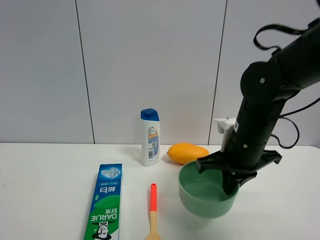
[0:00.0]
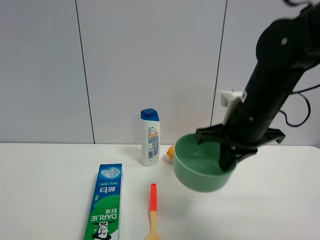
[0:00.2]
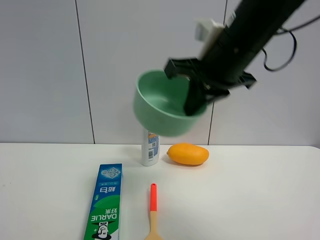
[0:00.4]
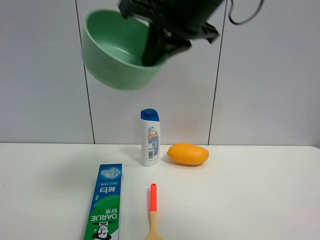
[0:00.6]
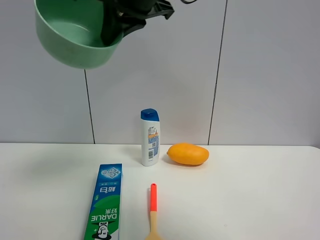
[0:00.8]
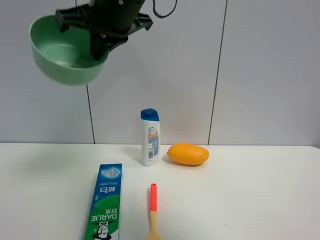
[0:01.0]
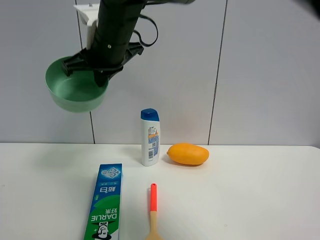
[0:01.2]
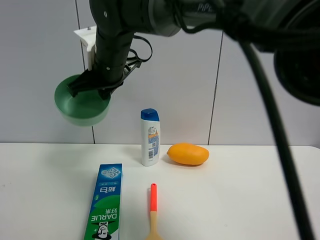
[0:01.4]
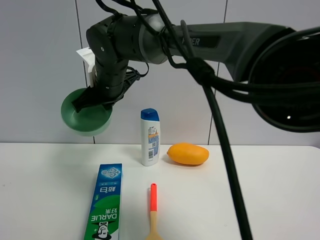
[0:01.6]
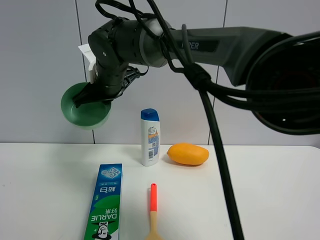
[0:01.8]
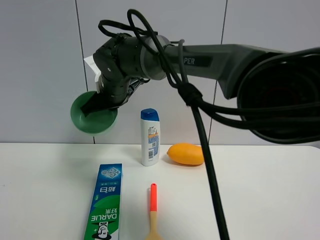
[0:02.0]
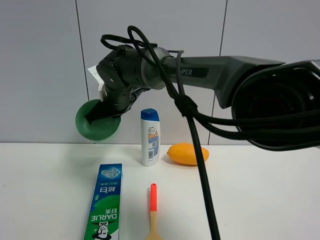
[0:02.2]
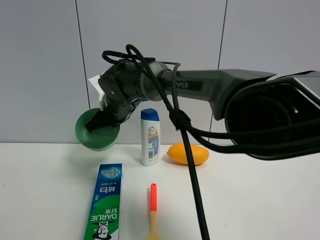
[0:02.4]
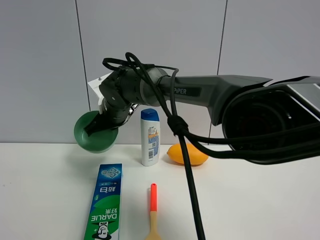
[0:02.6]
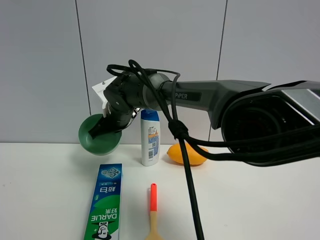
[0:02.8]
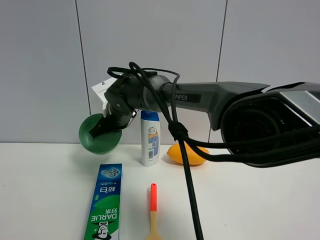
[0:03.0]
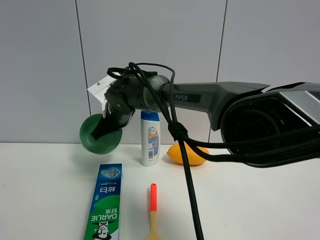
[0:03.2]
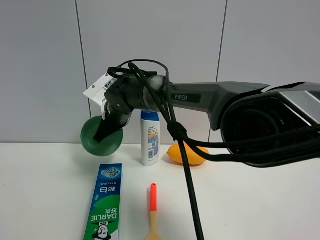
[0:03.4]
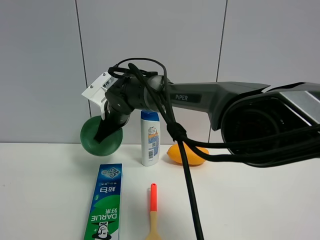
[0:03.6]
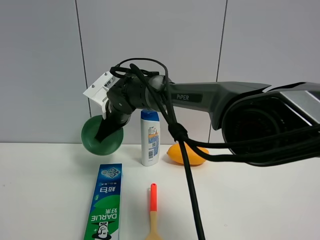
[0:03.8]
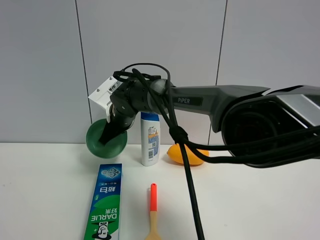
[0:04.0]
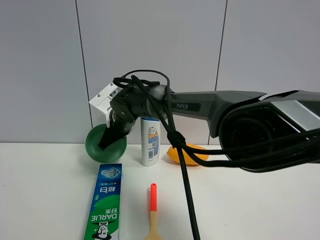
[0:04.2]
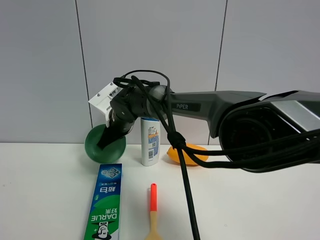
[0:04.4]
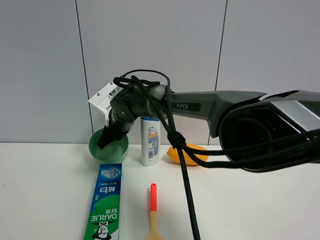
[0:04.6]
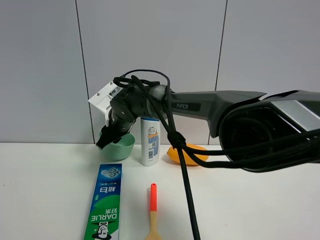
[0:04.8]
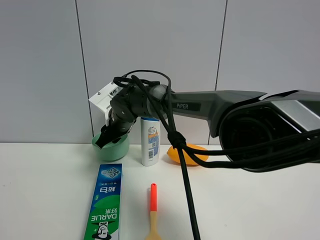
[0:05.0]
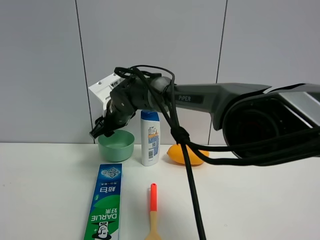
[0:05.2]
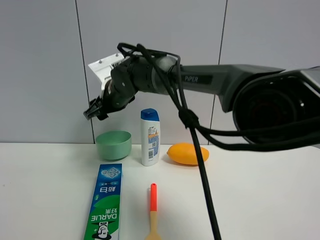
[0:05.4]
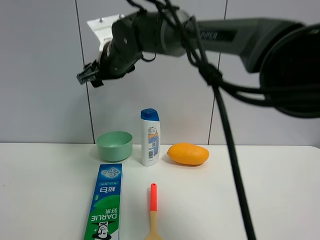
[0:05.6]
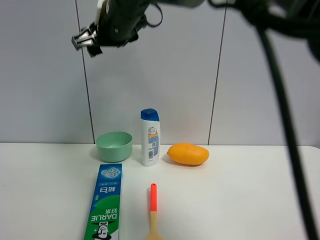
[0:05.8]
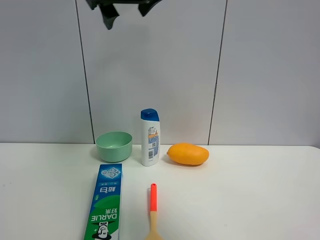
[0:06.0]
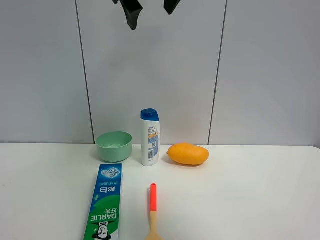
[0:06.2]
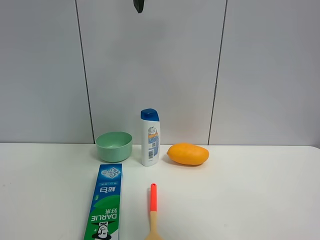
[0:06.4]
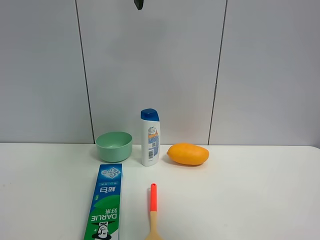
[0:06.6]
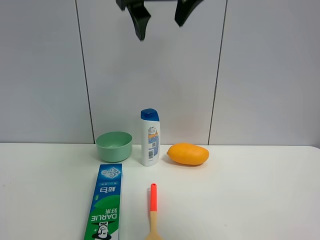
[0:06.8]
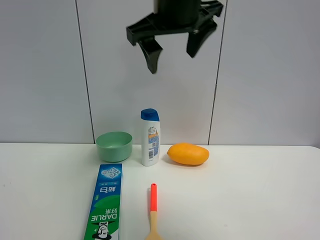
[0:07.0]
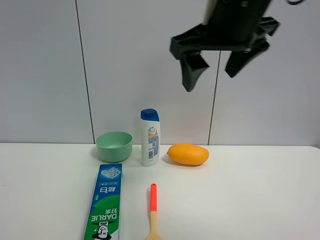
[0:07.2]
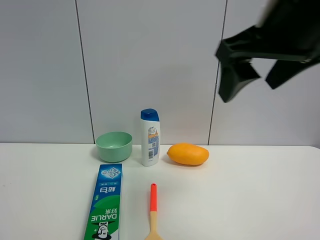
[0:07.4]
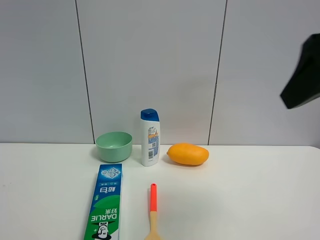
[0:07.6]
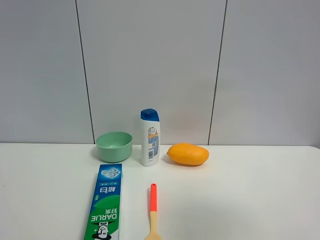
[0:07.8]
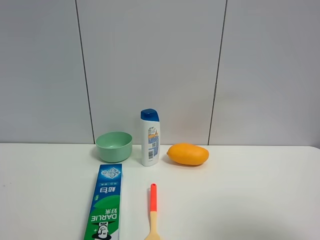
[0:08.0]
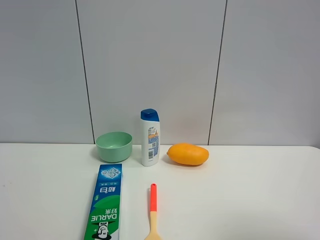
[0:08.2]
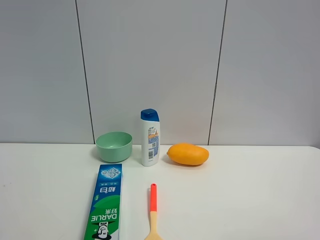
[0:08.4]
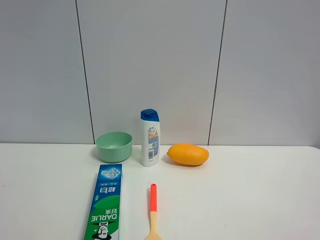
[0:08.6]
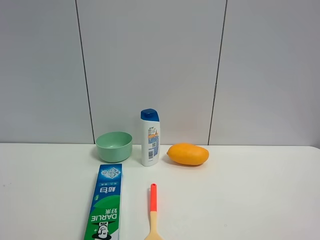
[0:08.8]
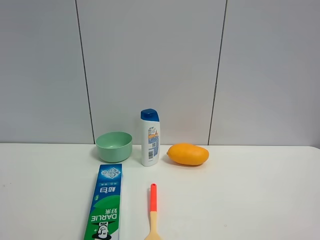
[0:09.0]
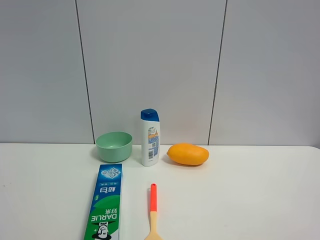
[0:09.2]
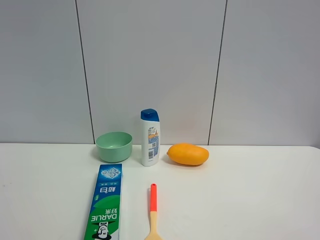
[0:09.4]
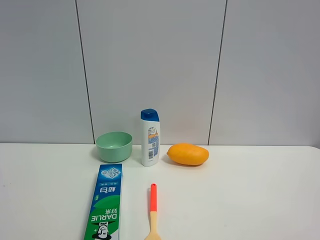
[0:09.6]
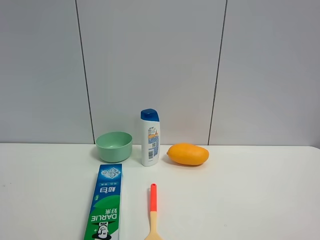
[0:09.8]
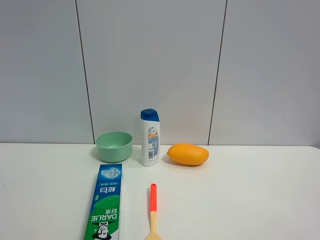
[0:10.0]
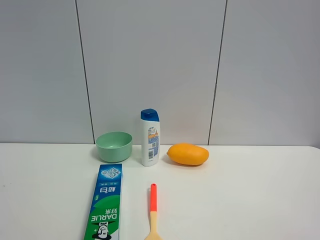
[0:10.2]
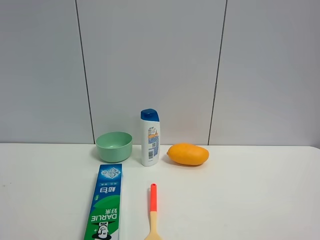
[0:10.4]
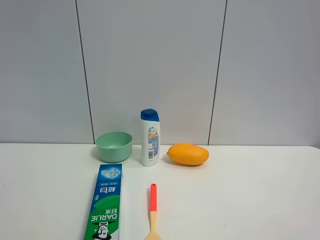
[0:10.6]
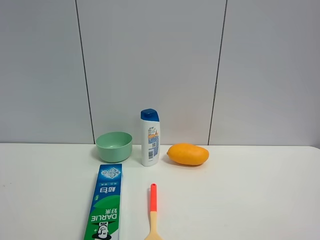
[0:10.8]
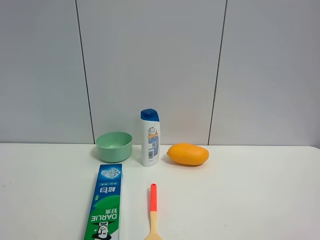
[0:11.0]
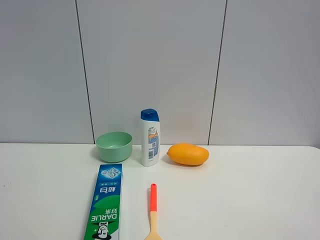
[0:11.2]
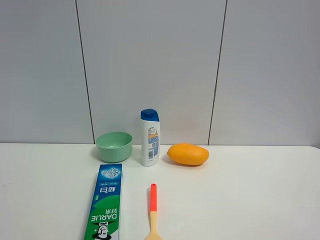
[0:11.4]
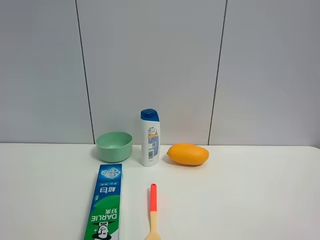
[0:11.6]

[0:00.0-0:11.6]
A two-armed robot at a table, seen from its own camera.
Task of the whole recording: the gripper move the object.
Step, 0:00.0 to 0:04.8: Place the green bowl on the table with the right gripper.
0:00.0 to 0:01.4: The right gripper travels to the left by roughly 25 cm.
0:01.4 to 0:02.8: The right gripper heads downward and forward, covering roughly 15 cm.
0:04.4 to 0:05.8: The right gripper goes about 20 cm upward, and opens.
0:05.8 to 0:07.2: The right gripper shifts approximately 20 cm to the right and backward.
0:07.2 to 0:08.8: The right gripper goes approximately 30 cm backward and to the right.
0:08.8 to 0:11.6: The two grippers keep their place.

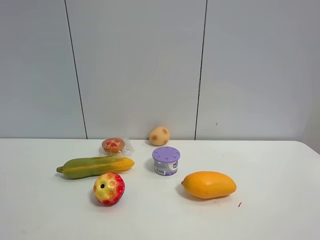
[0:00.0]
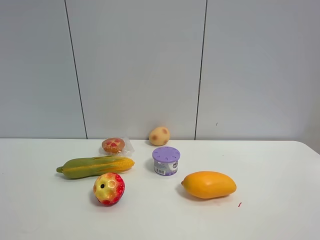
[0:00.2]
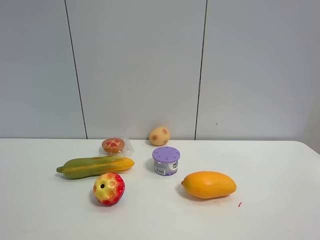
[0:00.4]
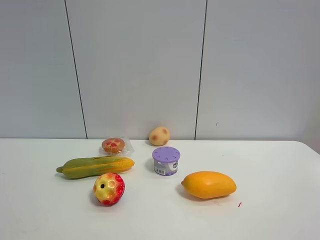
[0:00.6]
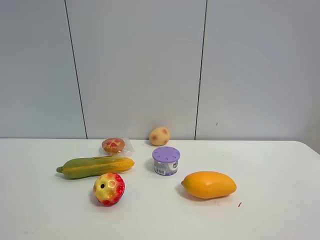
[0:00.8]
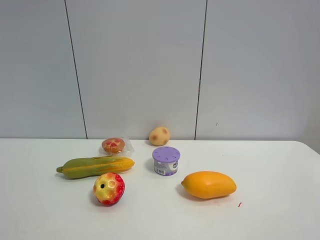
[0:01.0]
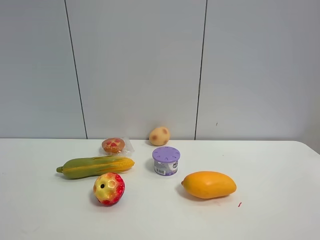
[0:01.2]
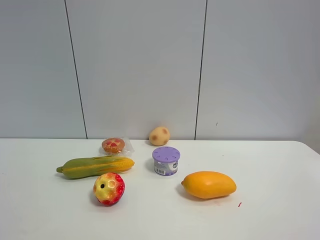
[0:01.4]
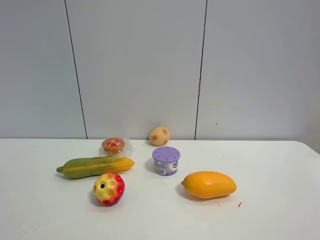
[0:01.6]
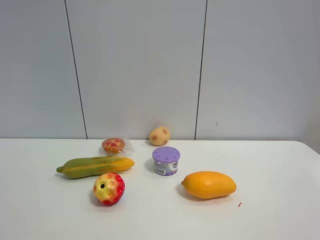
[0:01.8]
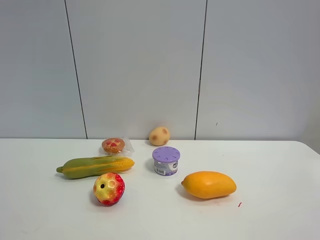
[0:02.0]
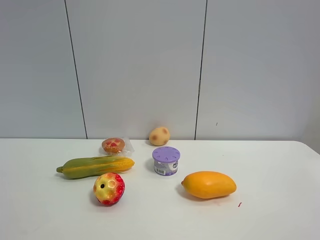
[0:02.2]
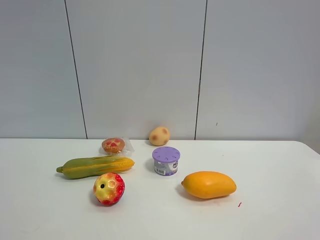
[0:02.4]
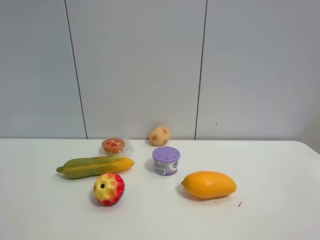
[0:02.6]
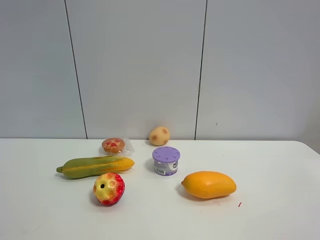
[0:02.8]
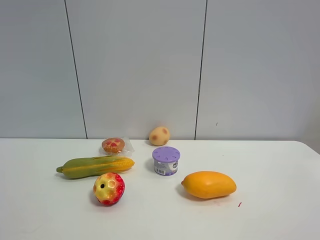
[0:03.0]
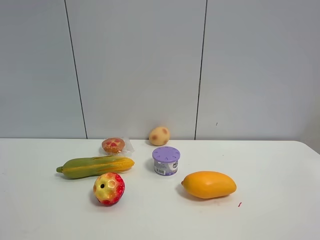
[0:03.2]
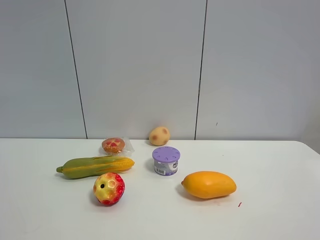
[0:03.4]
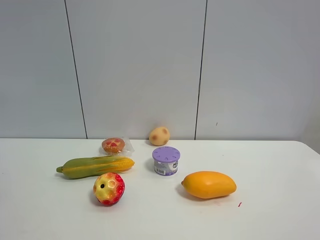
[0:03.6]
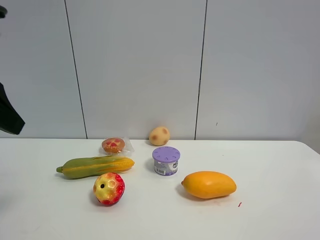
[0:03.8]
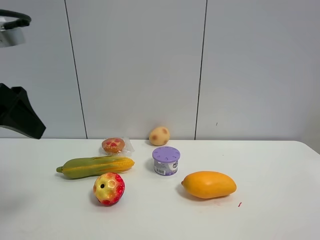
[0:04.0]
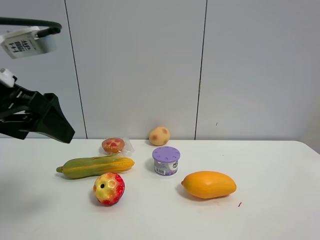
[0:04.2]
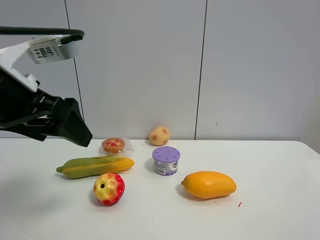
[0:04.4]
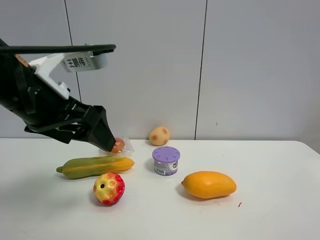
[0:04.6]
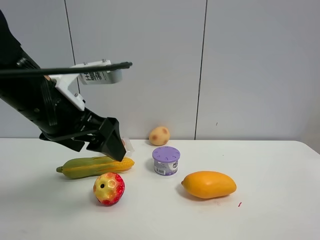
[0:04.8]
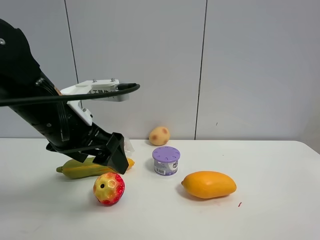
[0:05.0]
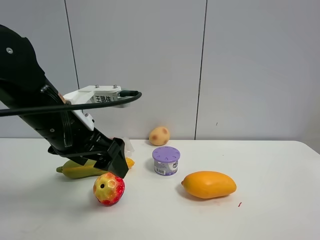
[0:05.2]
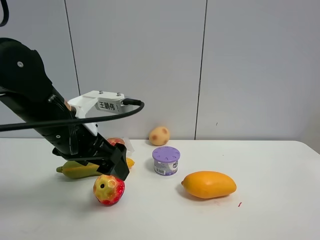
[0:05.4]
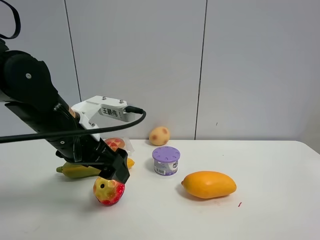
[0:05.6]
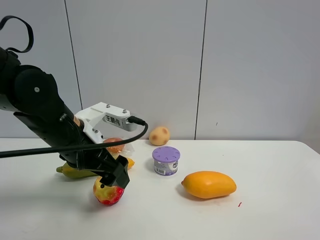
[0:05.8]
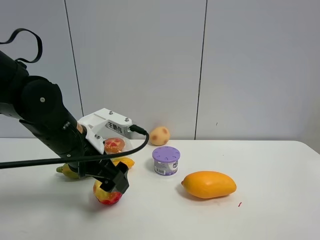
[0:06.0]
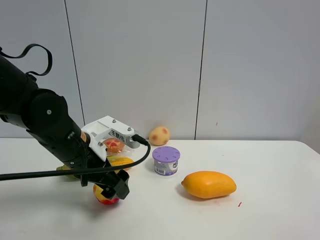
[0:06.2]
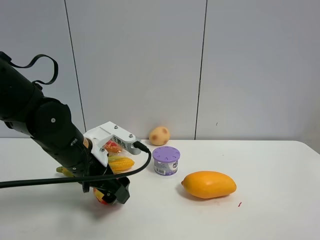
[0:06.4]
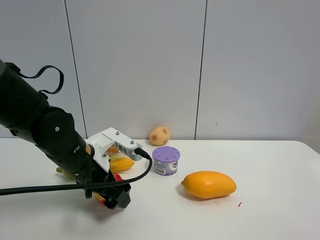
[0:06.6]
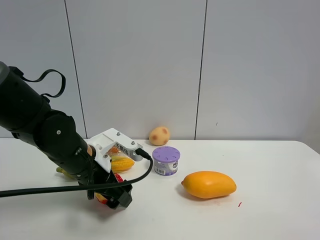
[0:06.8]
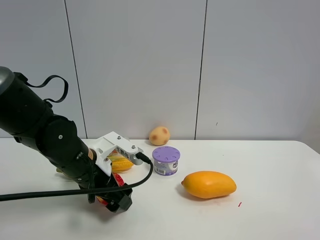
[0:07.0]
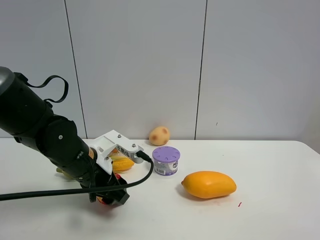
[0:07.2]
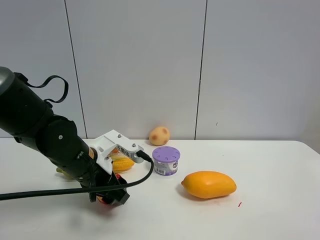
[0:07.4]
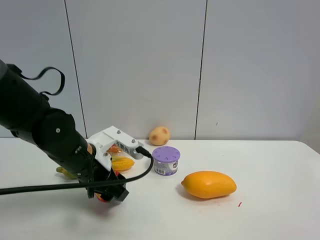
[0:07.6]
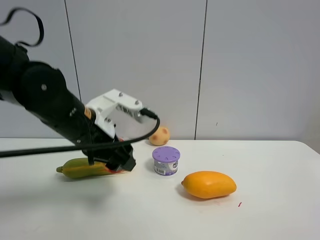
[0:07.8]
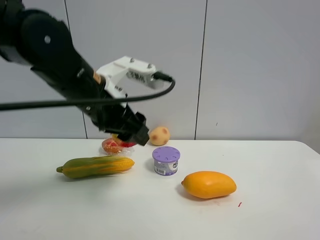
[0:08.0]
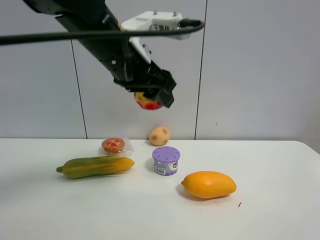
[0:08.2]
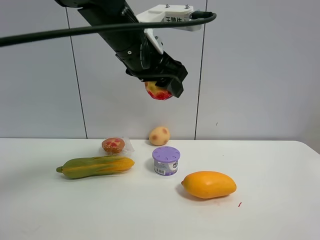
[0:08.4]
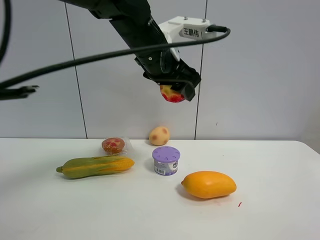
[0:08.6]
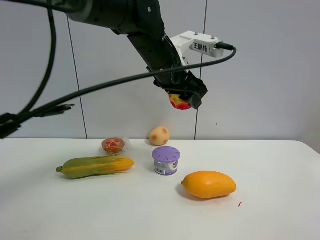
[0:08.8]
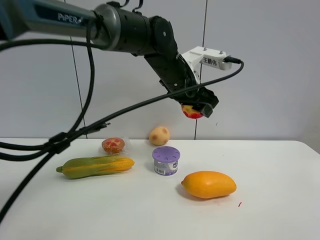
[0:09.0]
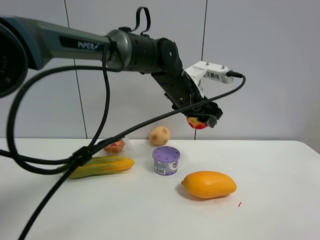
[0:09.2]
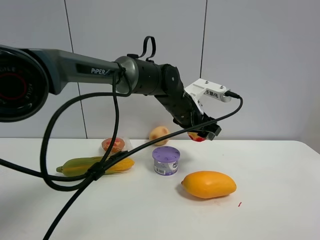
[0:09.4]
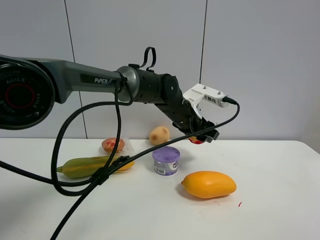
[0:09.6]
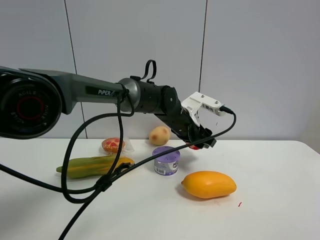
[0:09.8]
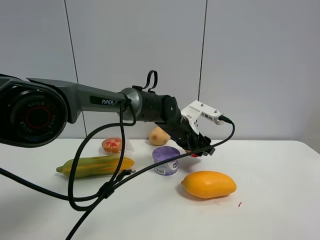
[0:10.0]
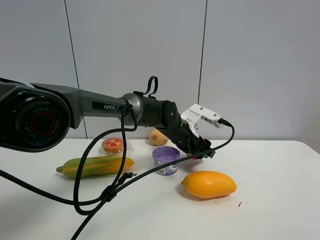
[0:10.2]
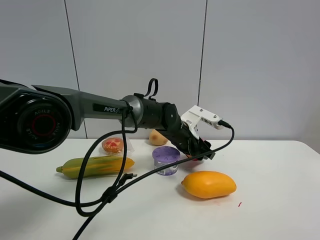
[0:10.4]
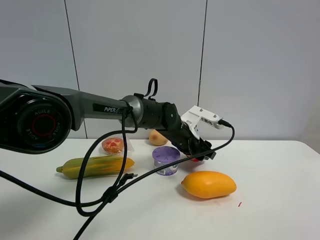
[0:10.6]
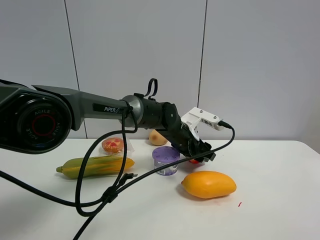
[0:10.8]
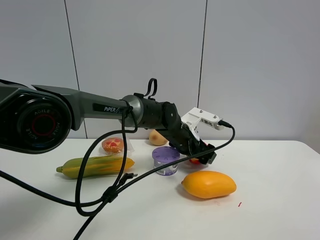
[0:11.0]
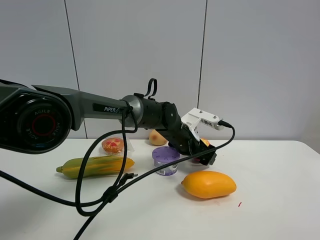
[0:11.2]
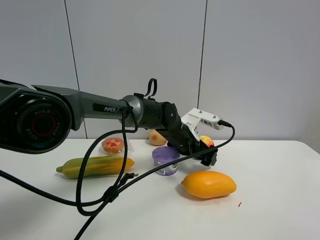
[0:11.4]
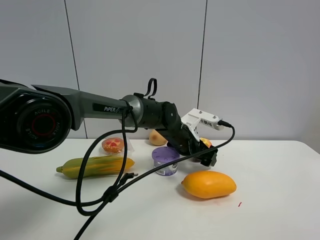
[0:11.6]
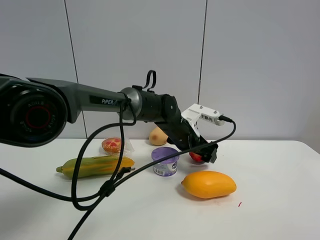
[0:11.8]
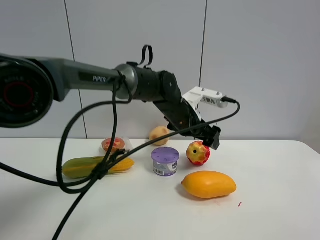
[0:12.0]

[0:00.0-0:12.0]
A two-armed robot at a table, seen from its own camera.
Task of the whole recording: the gripper move the object.
Step, 0:00.0 to 0:07.2: Grasp the colorful ball with the left gripper.
0:00.0 to 0:01.6: The two grippers keep their place.
0:03.0 to 0:04.4: The left gripper moves to the right, forward and downward, approximately 15 cm.
0:04.4 to 0:06.0: The left gripper heads downward, forward and to the right, covering some 15 cm.
0:06.0 to 0:07.6: The left gripper closes up.
0:07.6 to 0:09.0: The left gripper travels to the right, upward and forward by some 25 cm.
0:09.0 to 0:10.4: The left gripper shifts about 15 cm downward.
0:10.4 to 0:12.0: The left gripper heads upward, covering roughly 5 cm, and opens.
